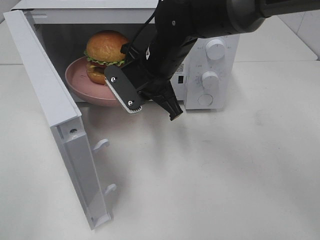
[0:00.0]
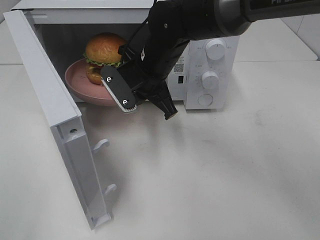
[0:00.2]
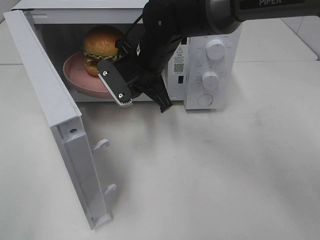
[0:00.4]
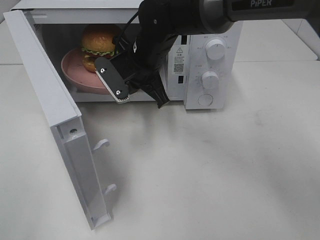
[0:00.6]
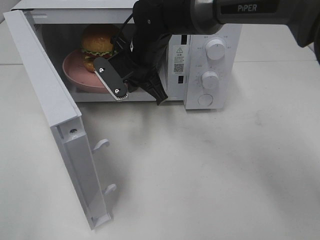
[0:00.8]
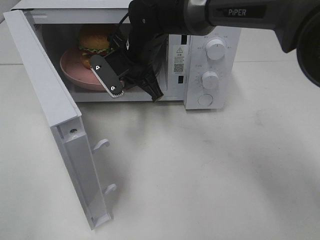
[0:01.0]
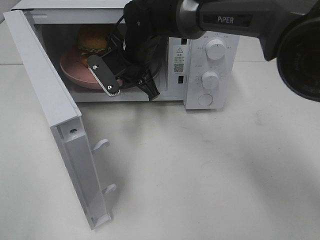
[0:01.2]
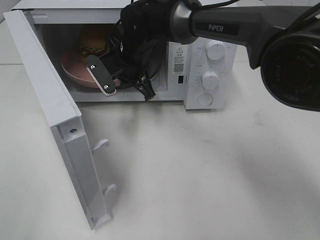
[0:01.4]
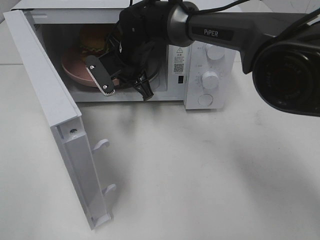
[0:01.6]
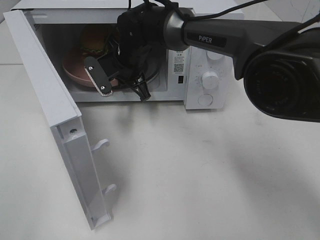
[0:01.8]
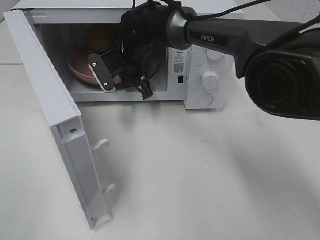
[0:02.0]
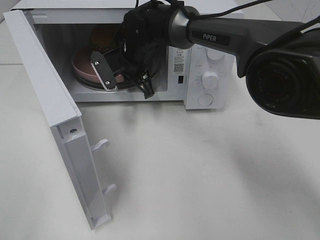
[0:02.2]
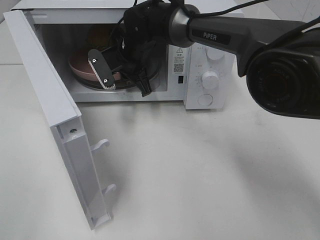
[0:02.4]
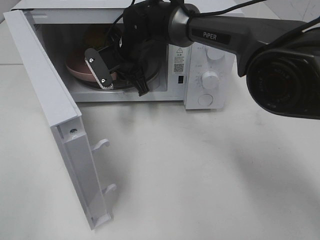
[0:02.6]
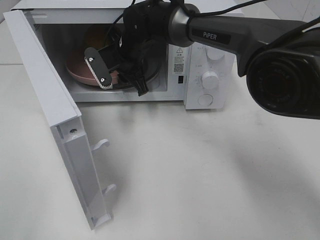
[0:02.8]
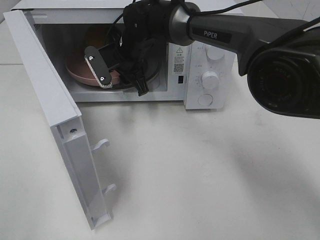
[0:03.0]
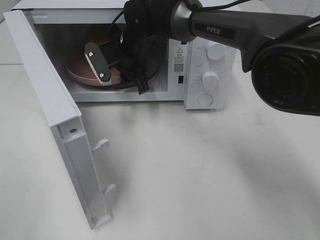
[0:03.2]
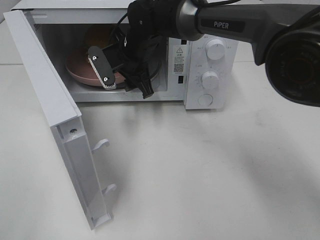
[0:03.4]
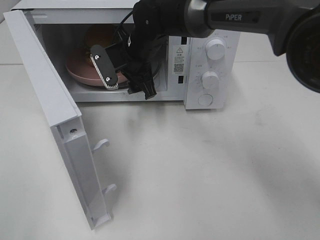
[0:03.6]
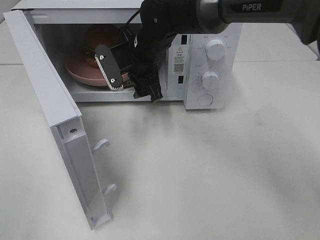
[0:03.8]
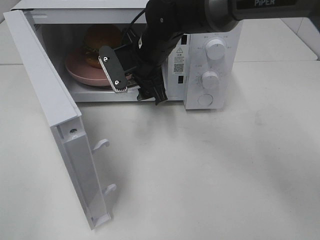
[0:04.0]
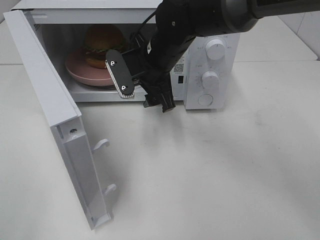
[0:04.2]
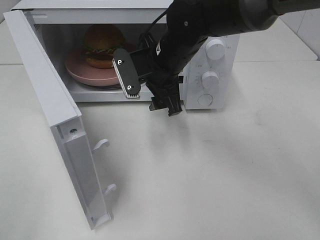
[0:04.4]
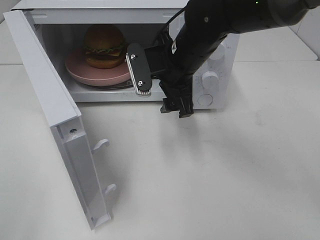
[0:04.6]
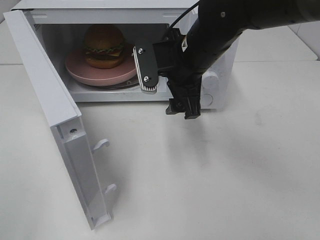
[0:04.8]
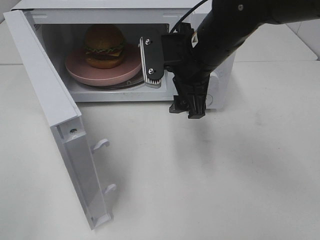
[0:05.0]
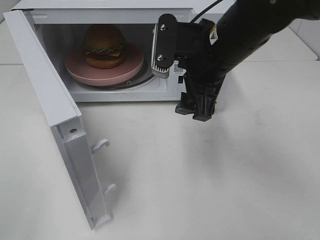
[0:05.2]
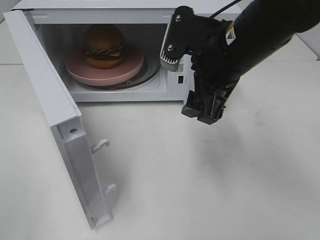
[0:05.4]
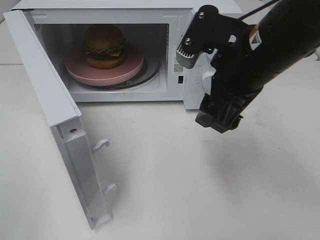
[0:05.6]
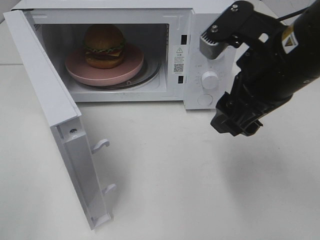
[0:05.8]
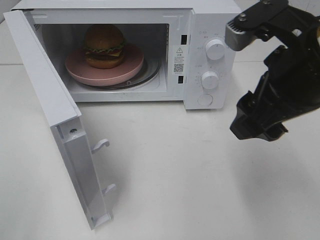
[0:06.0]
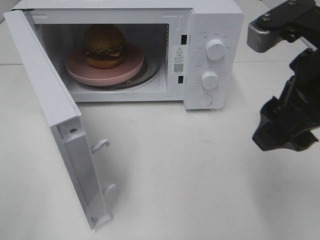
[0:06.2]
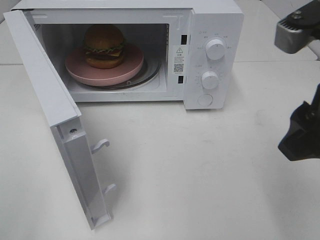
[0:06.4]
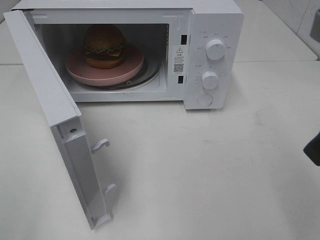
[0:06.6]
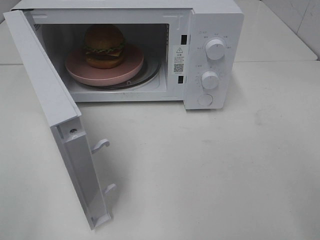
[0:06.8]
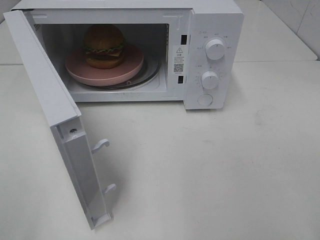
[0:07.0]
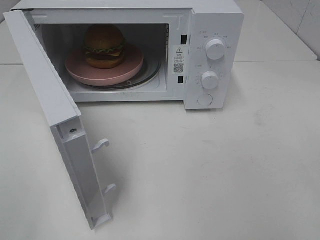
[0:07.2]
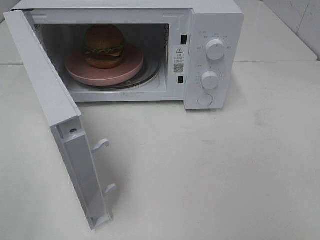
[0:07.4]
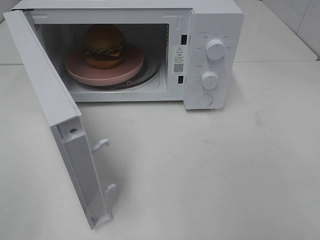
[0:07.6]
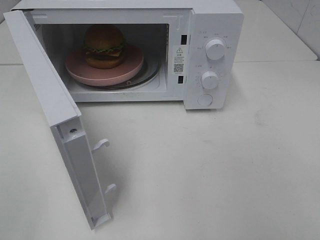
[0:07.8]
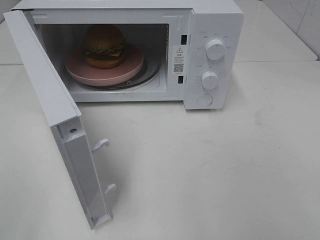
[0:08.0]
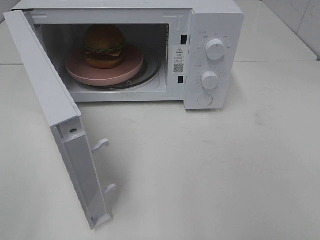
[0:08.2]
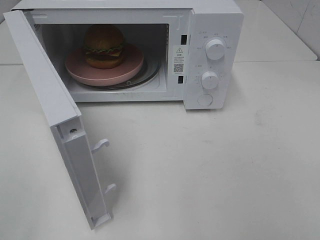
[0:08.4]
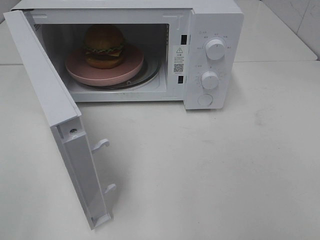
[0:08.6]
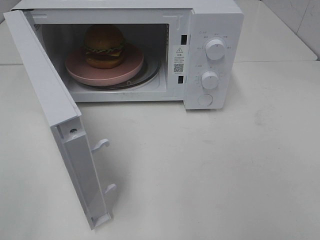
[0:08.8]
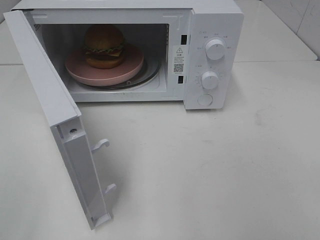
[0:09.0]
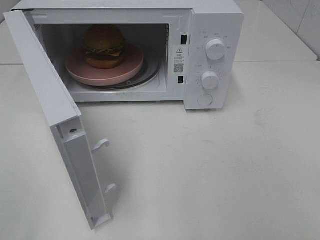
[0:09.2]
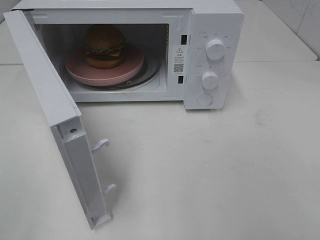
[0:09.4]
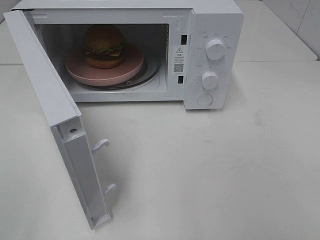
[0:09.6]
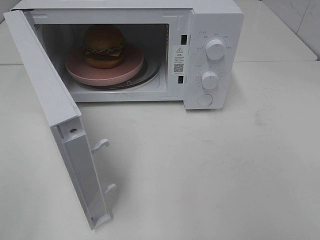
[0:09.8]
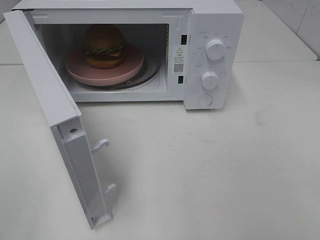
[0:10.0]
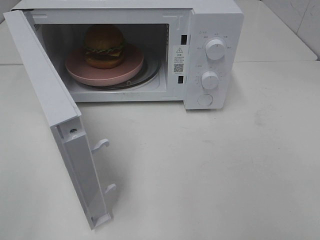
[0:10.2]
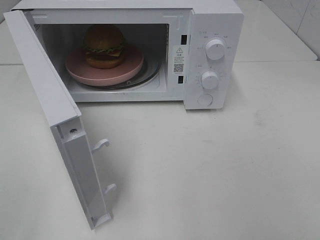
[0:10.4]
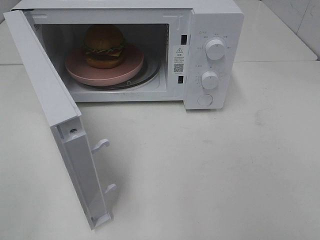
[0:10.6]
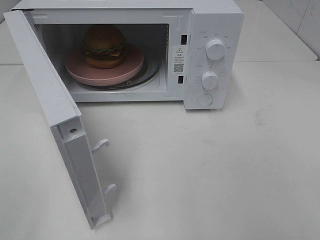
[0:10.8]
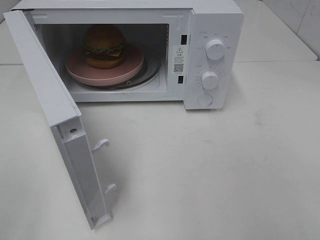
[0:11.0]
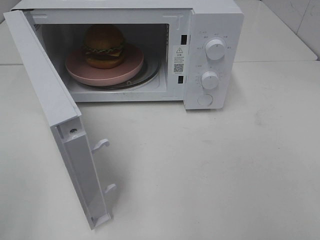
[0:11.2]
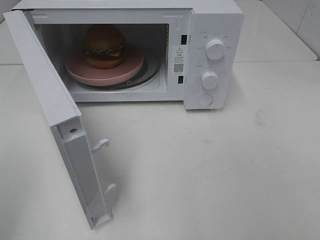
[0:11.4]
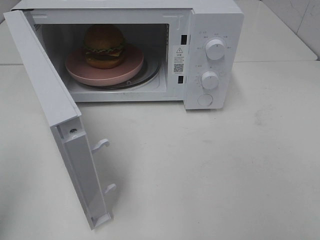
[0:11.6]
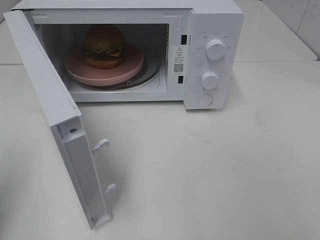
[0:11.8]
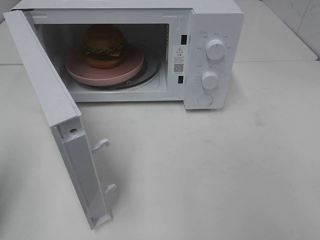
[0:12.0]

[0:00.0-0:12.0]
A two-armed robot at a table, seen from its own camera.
Task of the whole recording: Heat the burger.
Step, 0:00.0 to 0:03.2: Right hand: place the plate in the microwave.
0:00.0 to 0:01.6: The right gripper travels forward and to the left by roughly 10 cm.
0:01.6 to 0:03.0: The right gripper opens its fingers.
0:03.0 to 0:04.4: The right gripper is displaced backward and to the right by roughly 10 cm.
0:04.4 to 0:06.0: The right gripper is displaced backward, to the right and upward by roughly 25 cm.
0:06.0 to 0:07.6: The right gripper travels backward and to the right by some 20 cm.
0:09.0 to 0:10.4: The two grippers keep their place.
0:10.4 to 0:12.0: The left gripper moves forward, some 15 cm, and closes up.

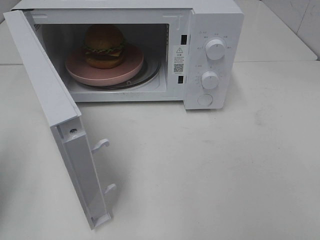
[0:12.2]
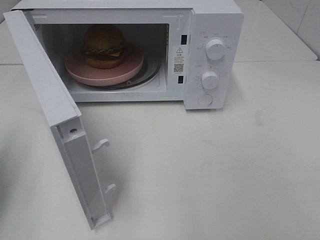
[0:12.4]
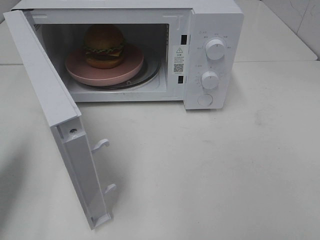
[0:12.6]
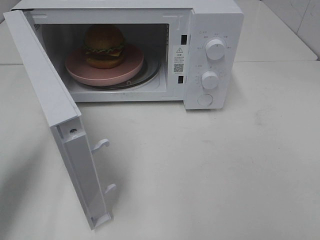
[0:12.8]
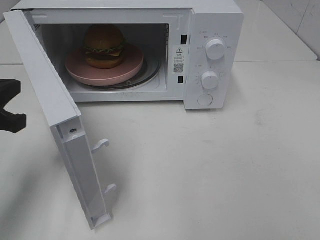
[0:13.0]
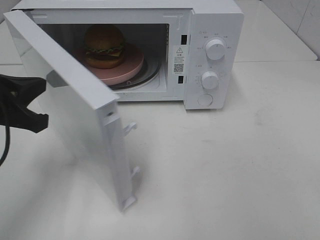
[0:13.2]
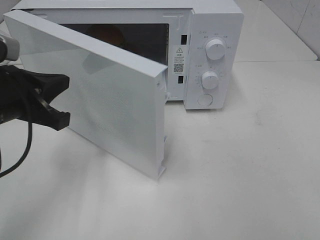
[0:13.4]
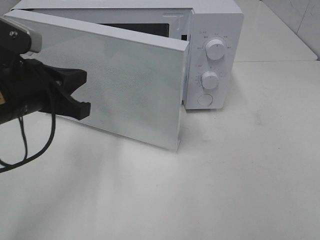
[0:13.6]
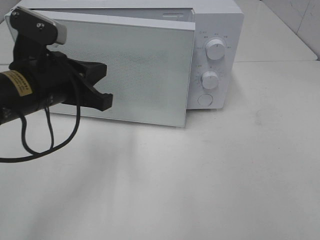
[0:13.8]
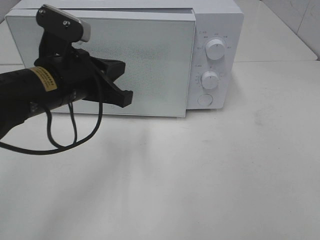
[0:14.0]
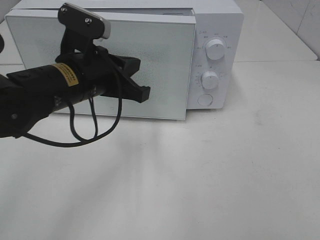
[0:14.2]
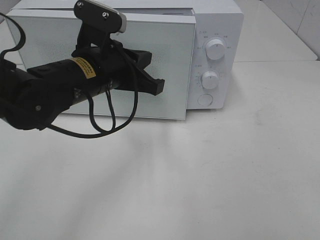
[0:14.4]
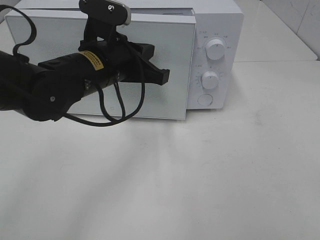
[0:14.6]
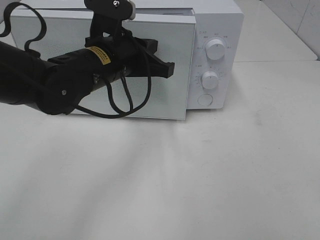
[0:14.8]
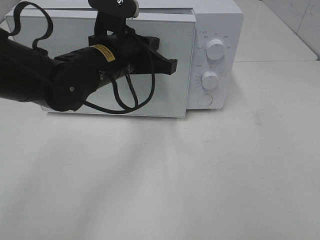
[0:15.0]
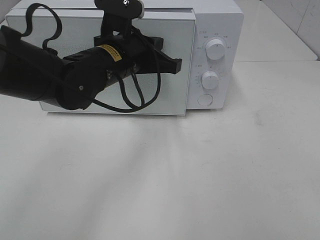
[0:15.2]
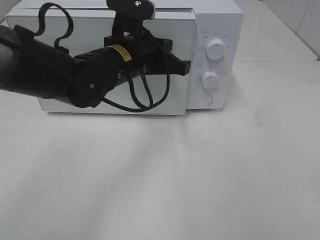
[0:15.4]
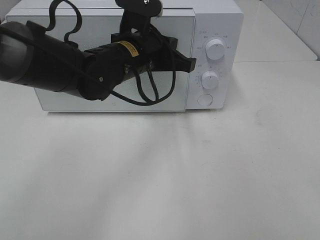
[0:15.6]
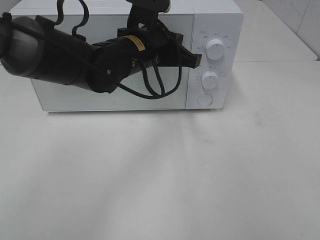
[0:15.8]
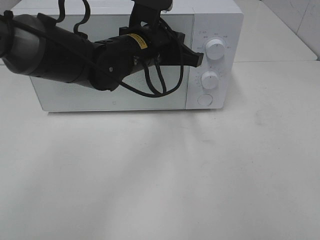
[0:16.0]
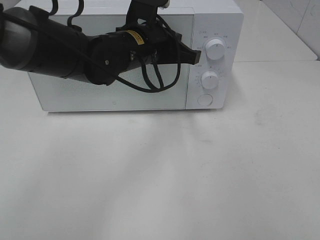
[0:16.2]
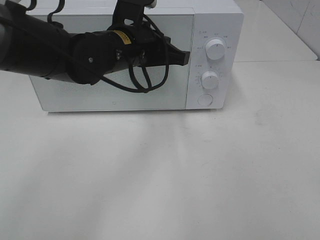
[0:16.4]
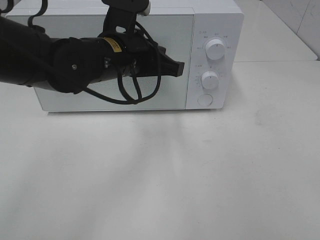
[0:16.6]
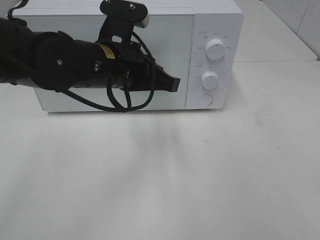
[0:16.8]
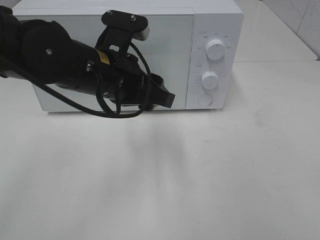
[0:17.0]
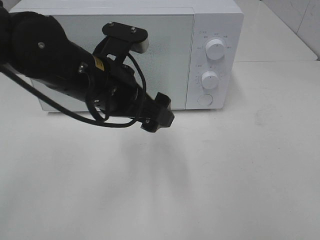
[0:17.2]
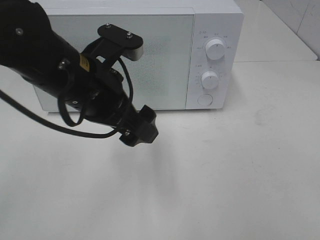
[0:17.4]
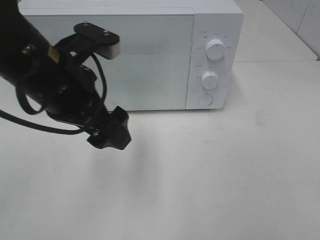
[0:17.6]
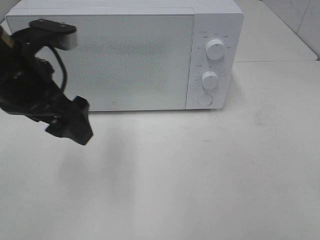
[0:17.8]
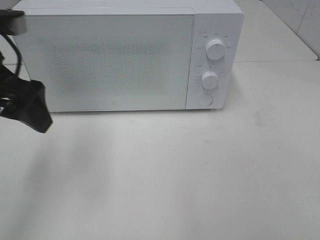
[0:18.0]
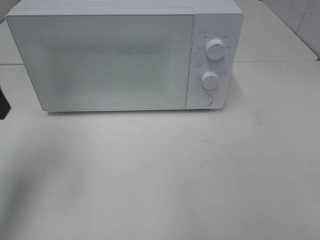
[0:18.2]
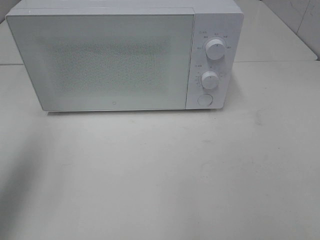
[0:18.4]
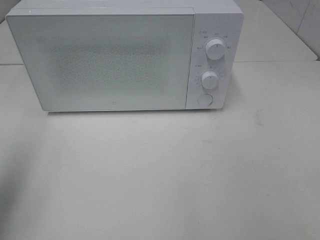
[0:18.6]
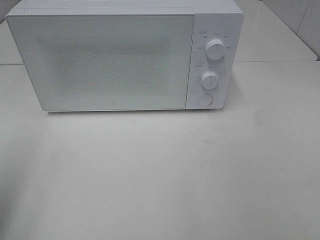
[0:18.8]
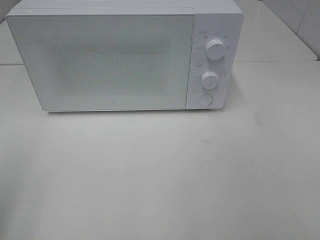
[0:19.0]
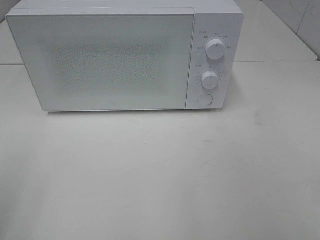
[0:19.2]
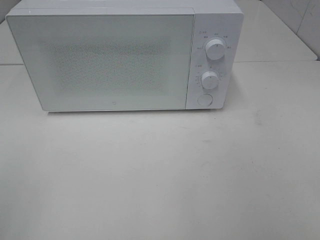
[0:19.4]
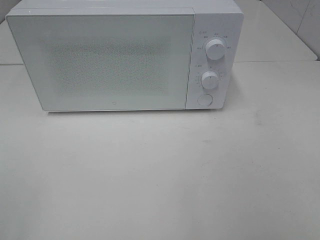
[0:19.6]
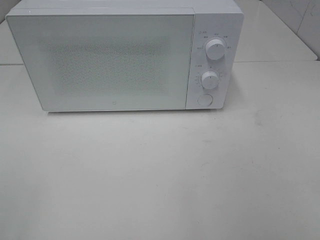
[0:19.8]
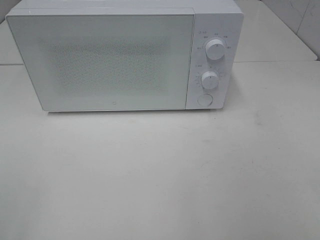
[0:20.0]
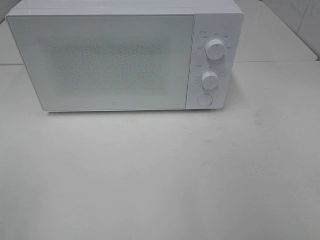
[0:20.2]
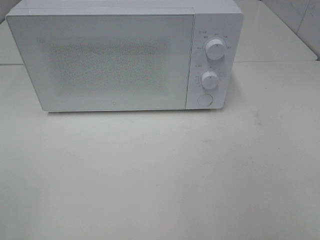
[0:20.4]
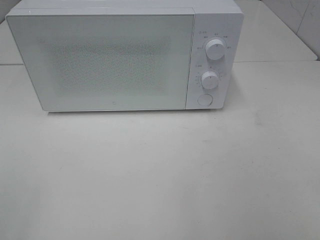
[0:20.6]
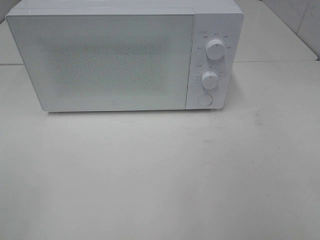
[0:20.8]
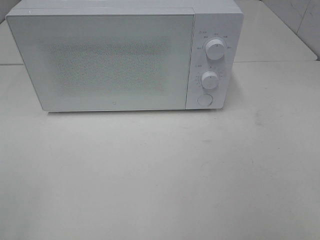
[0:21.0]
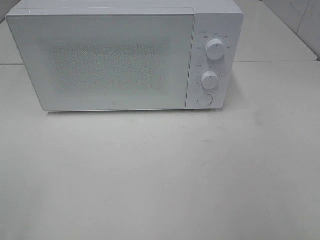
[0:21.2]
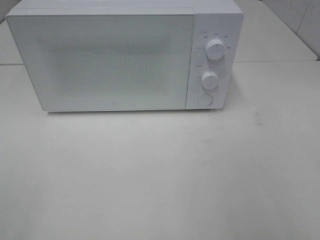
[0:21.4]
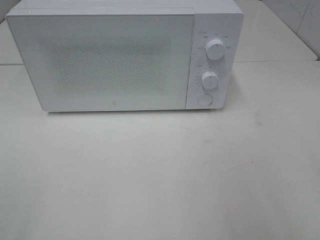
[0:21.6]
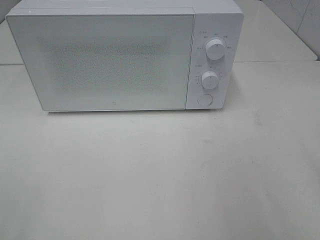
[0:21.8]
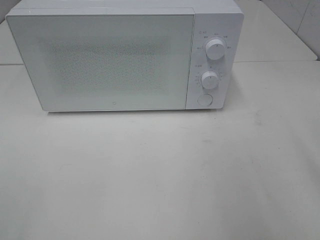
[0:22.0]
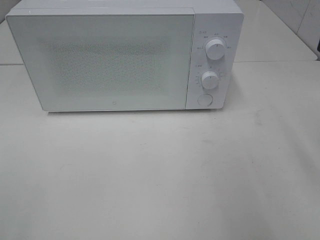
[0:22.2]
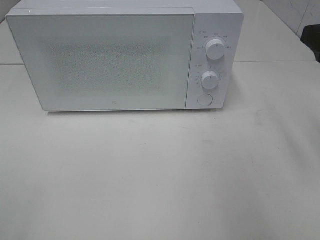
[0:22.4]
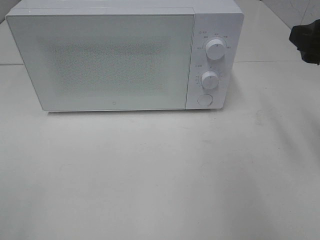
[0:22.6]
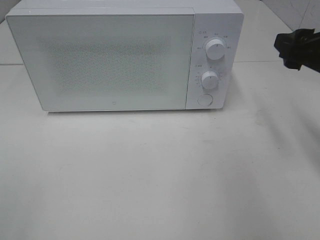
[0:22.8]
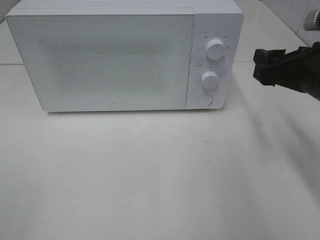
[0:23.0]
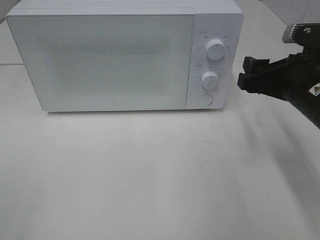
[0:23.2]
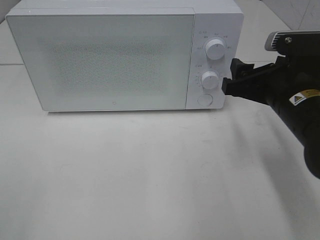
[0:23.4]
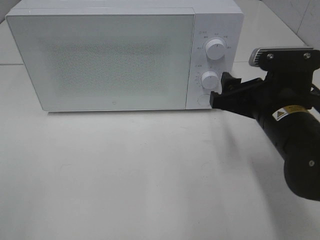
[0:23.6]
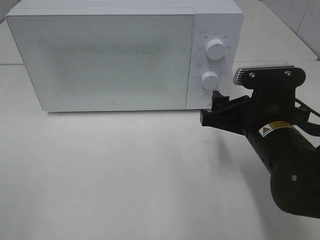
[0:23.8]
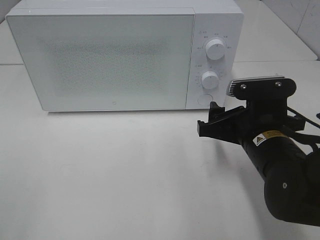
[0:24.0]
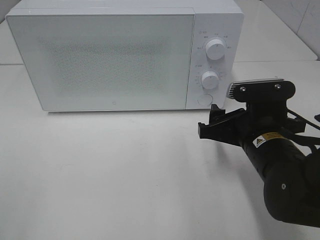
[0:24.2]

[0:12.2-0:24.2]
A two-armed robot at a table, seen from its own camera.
Task of the whole recording: Heat the burger.
Step, 0:12.2 to 0:16.8: Left hand: close the microwave door.
0:12.2 to 0:13.8: The left gripper heads to the right and forward, covering some 20 cm.
0:13.8 to 0:15.2: The left gripper travels to the right and forward by approximately 10 cm.
0:15.2 to 0:16.6: The grippers move only a little.
0:16.6 to 0:18.2: The left gripper is displaced to the left and upward by some 25 cm, and opens.
0:18.2 to 0:19.8: The left gripper shifts roughly 25 cm backward.
0:21.2 to 0:22.6: The right gripper goes approximately 20 cm forward.
0:22.6 to 0:24.2: The right gripper travels downward and to the left by roughly 15 cm.
